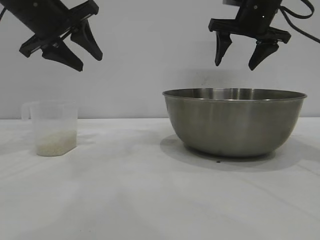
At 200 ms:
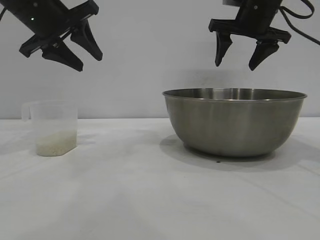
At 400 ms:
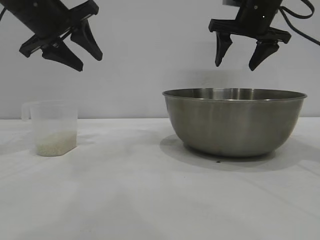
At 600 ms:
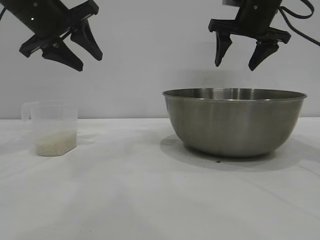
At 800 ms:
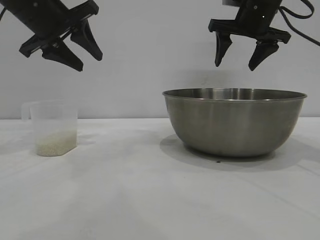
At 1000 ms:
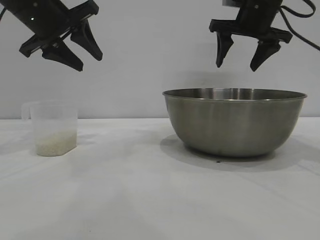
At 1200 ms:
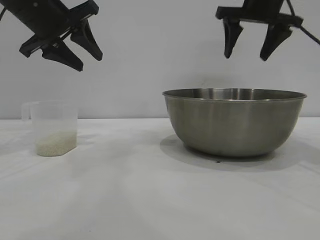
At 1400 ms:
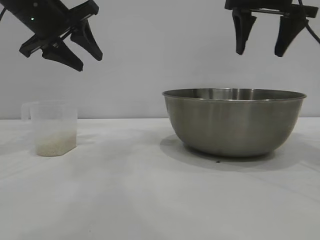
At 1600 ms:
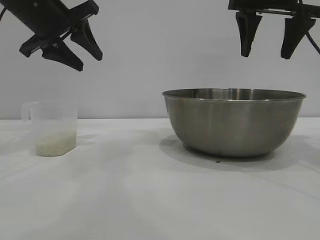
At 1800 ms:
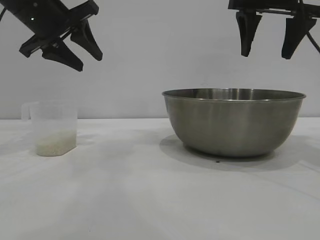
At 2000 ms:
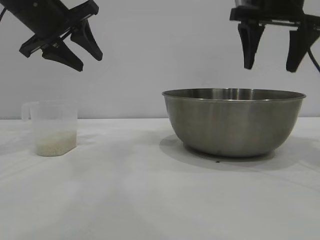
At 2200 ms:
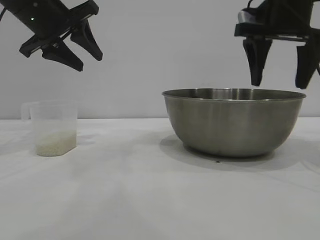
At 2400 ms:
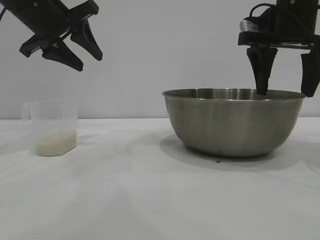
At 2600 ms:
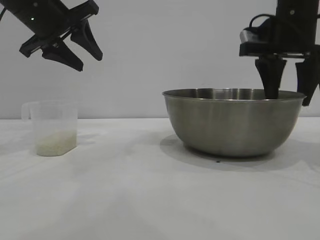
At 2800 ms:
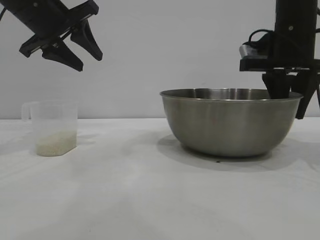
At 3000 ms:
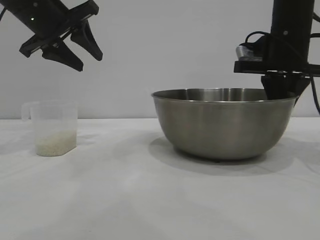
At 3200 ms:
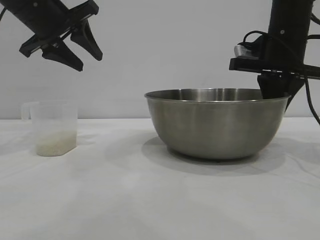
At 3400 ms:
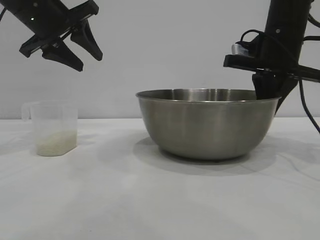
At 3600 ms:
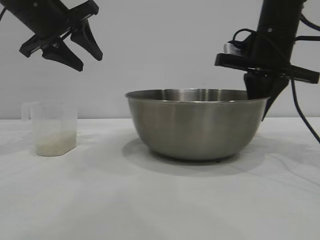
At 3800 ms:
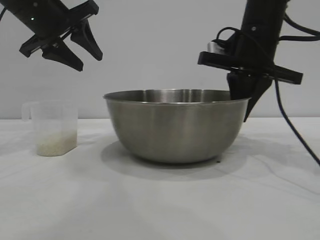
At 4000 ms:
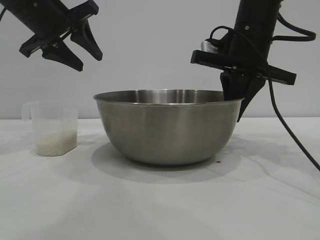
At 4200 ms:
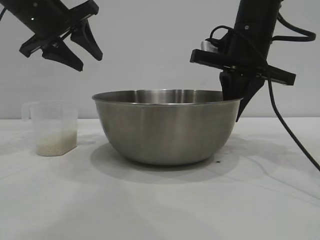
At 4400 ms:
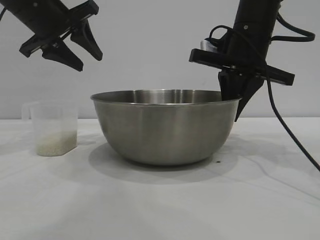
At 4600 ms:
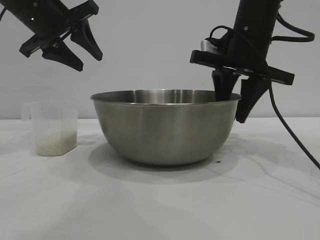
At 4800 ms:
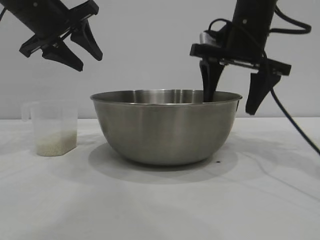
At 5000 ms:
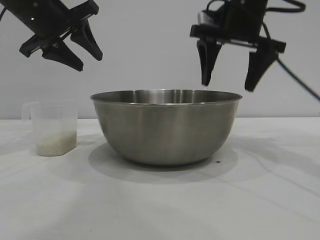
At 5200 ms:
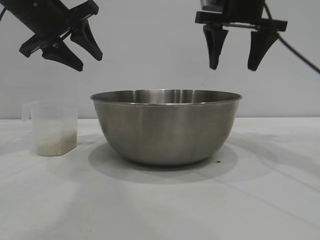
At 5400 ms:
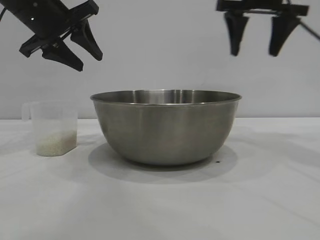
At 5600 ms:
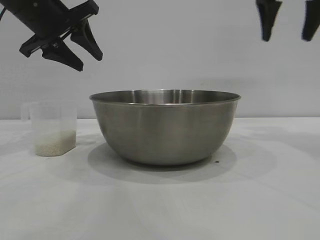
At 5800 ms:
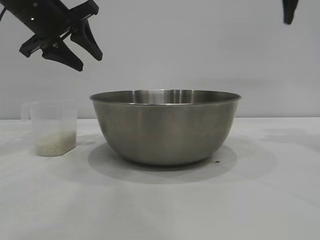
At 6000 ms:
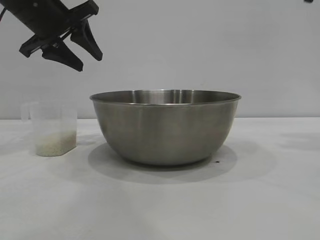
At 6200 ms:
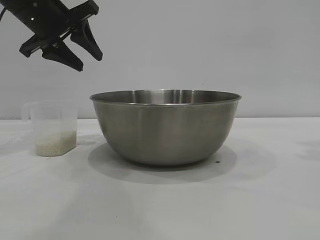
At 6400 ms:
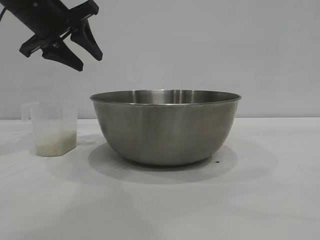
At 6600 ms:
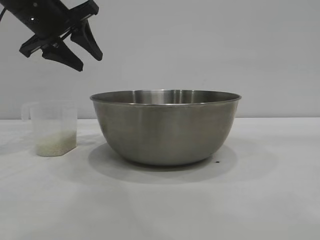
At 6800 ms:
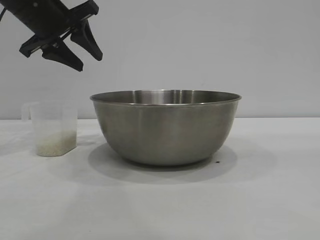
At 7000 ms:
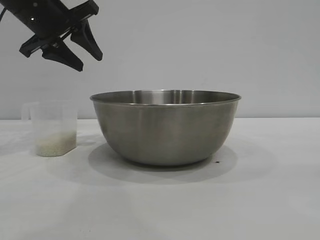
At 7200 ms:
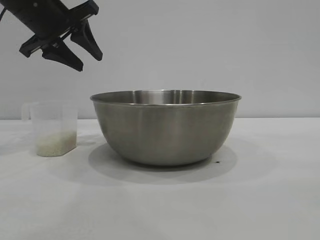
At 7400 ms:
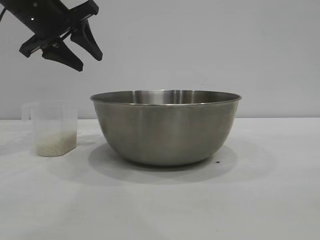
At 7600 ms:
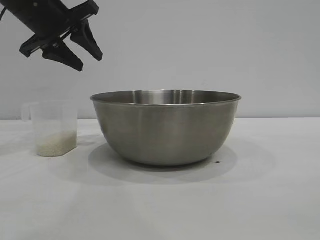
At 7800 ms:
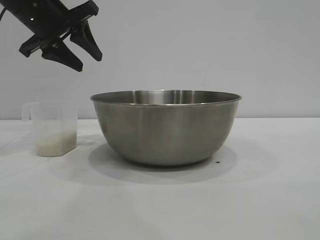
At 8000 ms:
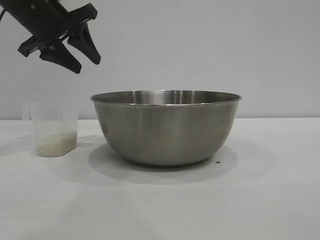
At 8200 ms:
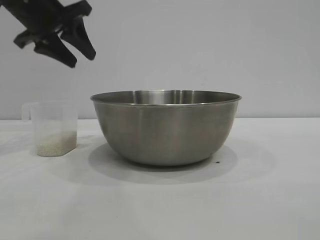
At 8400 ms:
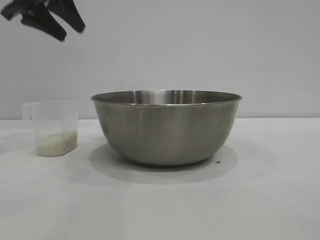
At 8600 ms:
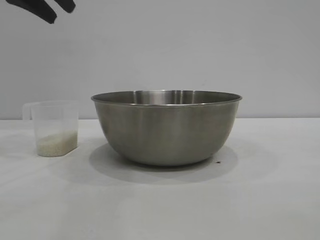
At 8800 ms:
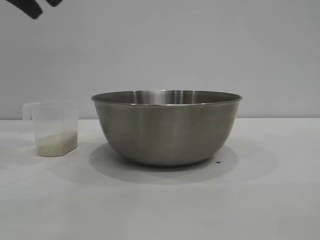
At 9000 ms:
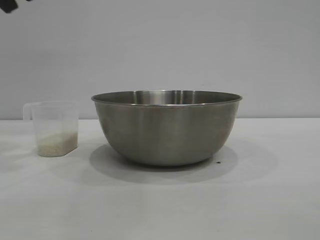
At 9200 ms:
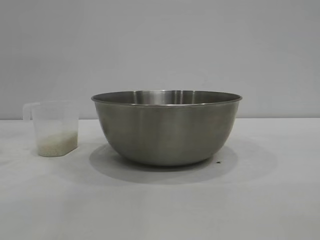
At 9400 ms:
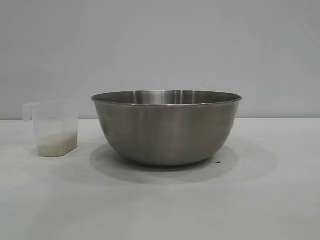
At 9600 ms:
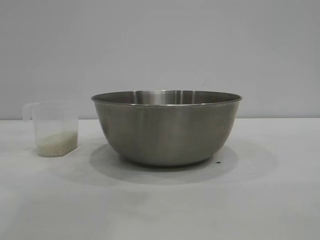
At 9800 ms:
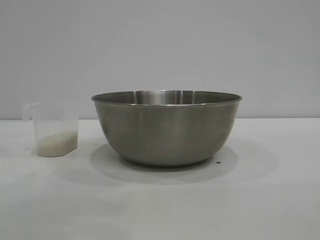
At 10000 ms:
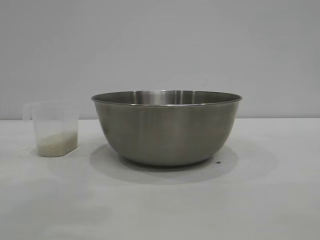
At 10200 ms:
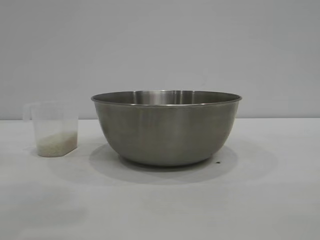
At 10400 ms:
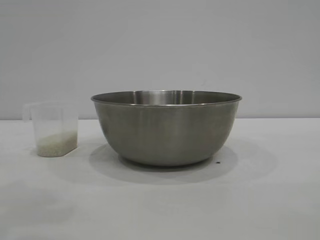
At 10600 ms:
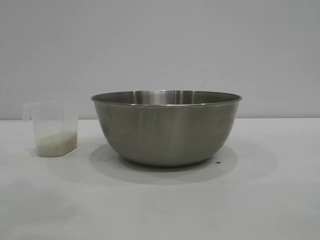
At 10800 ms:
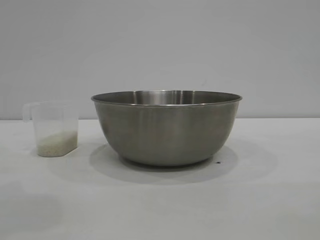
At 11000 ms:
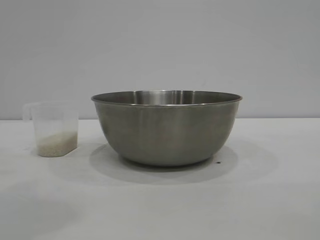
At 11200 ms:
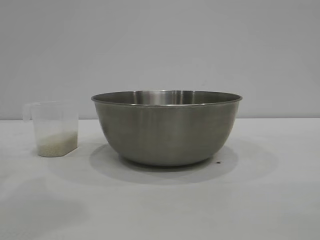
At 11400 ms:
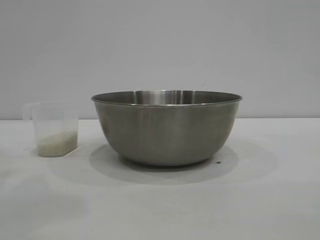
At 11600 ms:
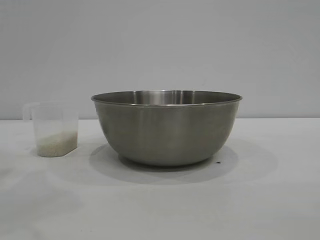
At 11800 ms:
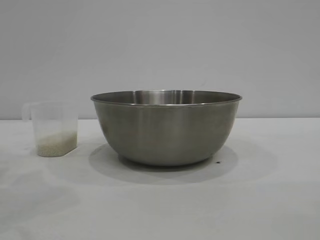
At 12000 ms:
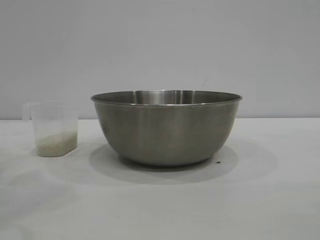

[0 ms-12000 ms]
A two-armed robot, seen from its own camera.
Task of the whole recording: the right gripper grasp the rice container and place it in the center of the table, the left gripper grasp the rice scoop and pour the rice into the rice container.
Step, 0 ms to 5000 ms: Move the bowl to the center of view with the right gripper.

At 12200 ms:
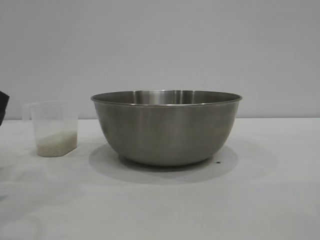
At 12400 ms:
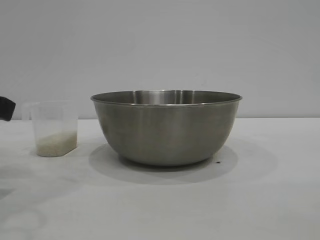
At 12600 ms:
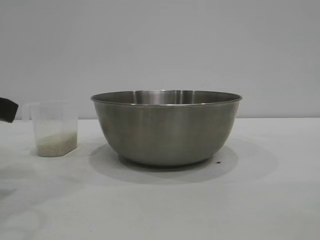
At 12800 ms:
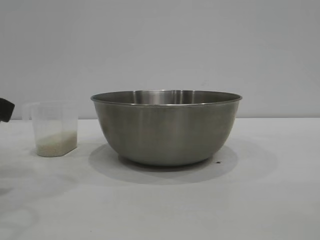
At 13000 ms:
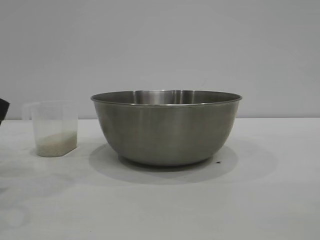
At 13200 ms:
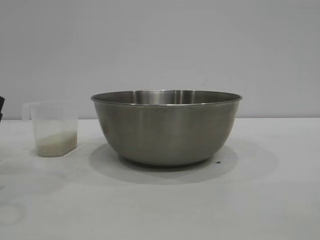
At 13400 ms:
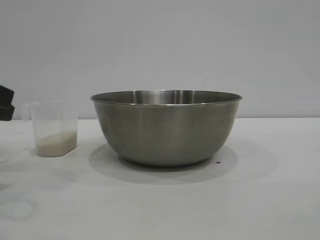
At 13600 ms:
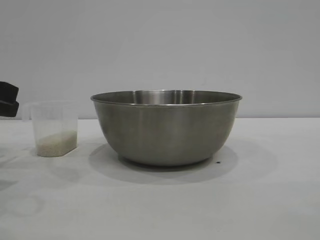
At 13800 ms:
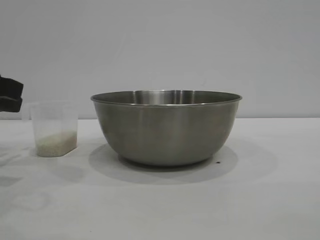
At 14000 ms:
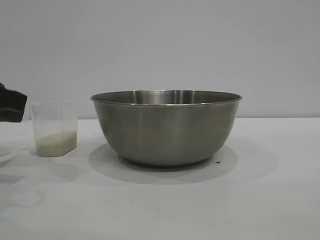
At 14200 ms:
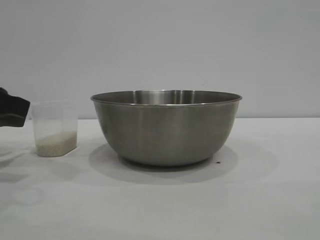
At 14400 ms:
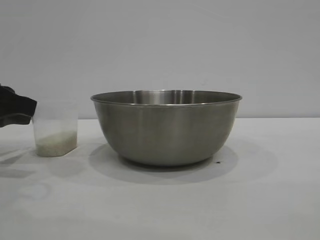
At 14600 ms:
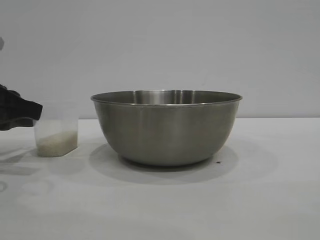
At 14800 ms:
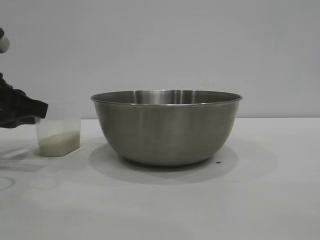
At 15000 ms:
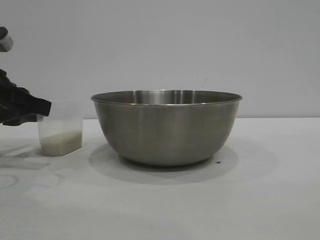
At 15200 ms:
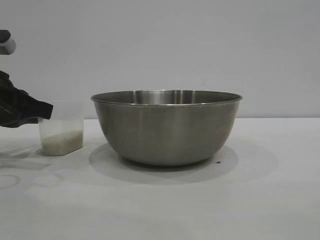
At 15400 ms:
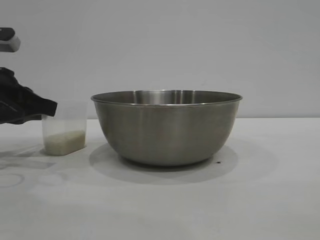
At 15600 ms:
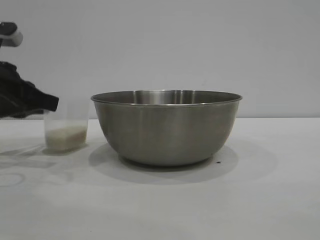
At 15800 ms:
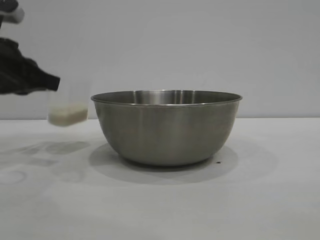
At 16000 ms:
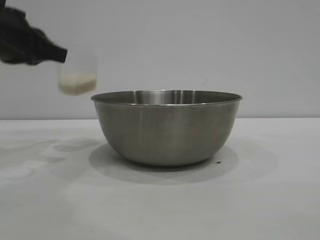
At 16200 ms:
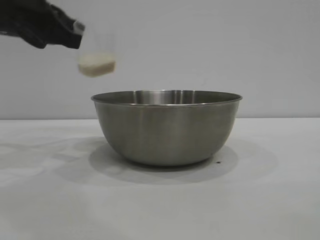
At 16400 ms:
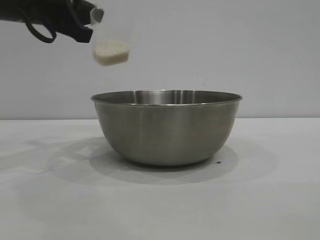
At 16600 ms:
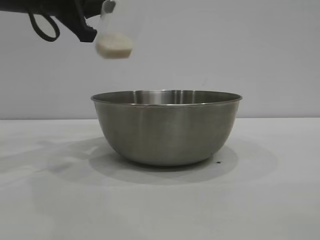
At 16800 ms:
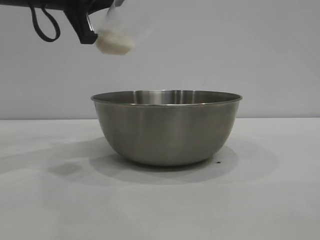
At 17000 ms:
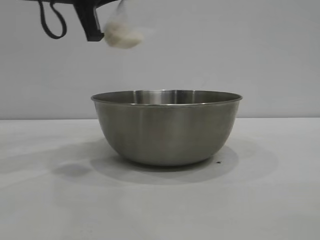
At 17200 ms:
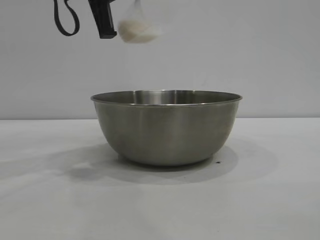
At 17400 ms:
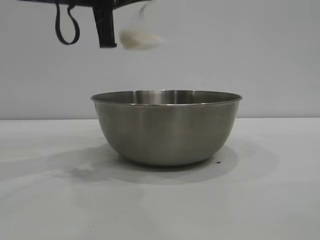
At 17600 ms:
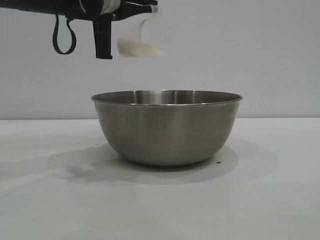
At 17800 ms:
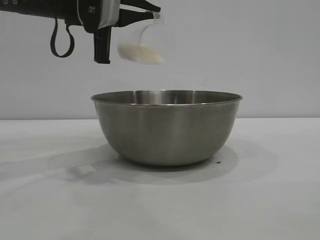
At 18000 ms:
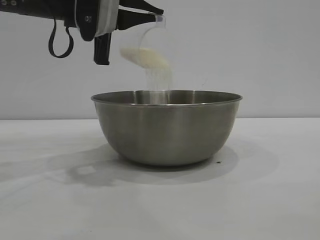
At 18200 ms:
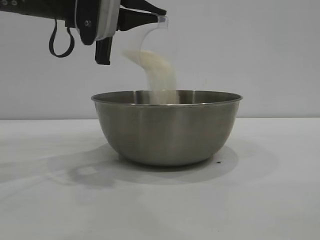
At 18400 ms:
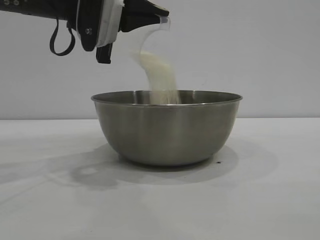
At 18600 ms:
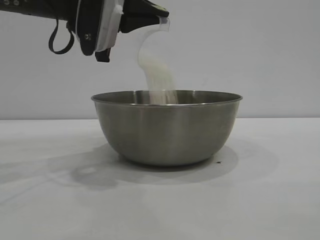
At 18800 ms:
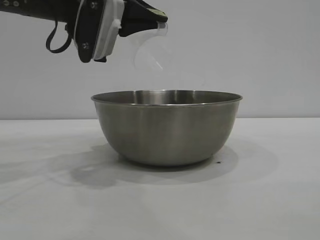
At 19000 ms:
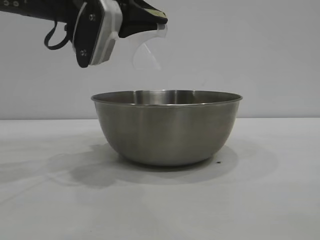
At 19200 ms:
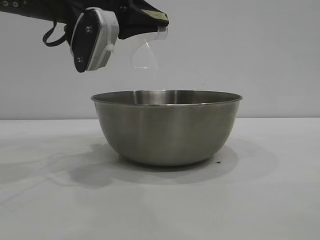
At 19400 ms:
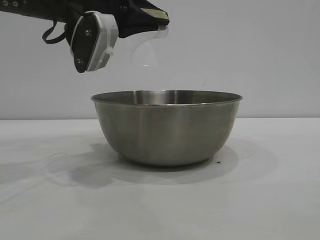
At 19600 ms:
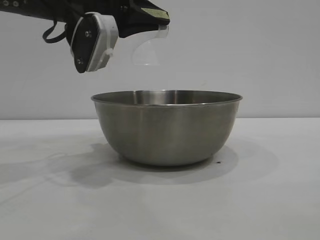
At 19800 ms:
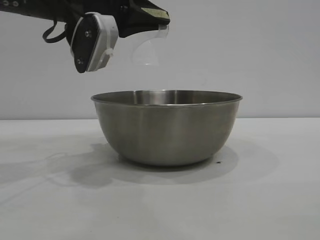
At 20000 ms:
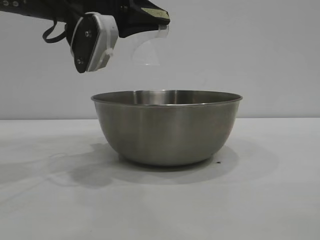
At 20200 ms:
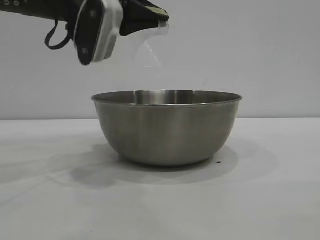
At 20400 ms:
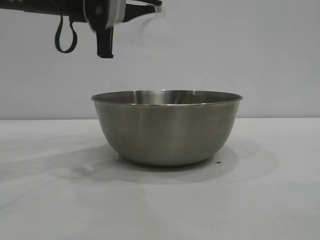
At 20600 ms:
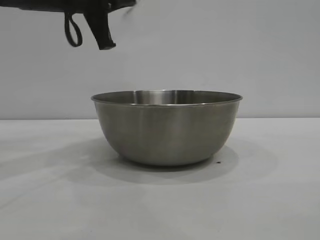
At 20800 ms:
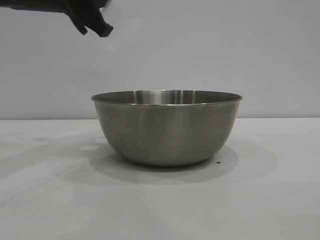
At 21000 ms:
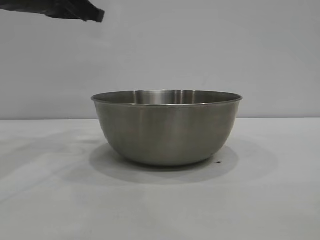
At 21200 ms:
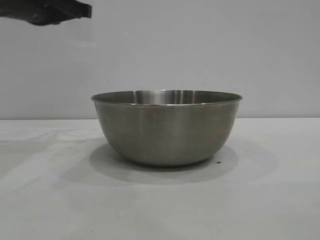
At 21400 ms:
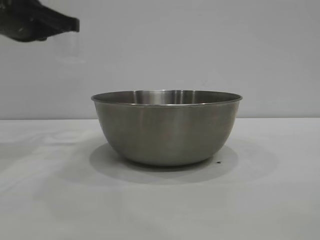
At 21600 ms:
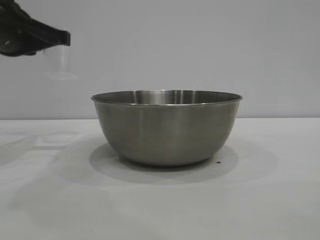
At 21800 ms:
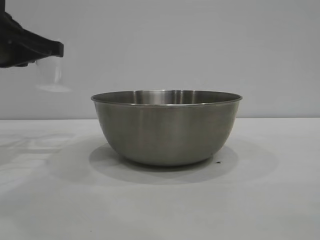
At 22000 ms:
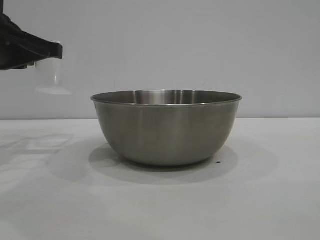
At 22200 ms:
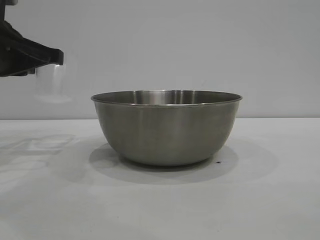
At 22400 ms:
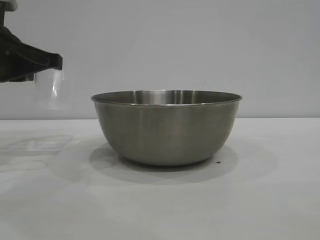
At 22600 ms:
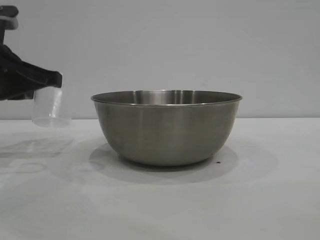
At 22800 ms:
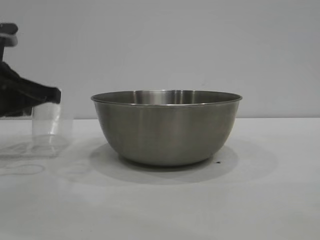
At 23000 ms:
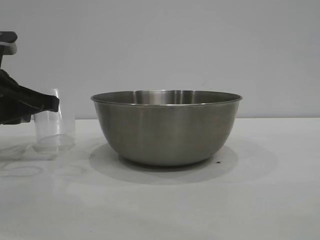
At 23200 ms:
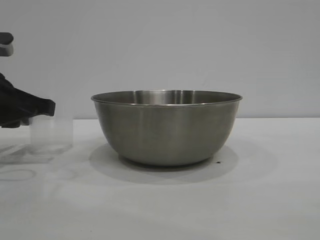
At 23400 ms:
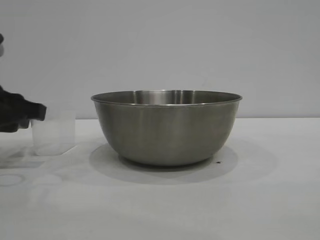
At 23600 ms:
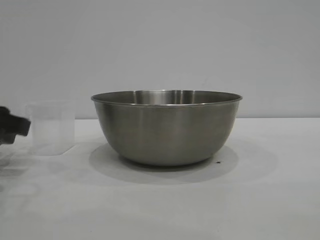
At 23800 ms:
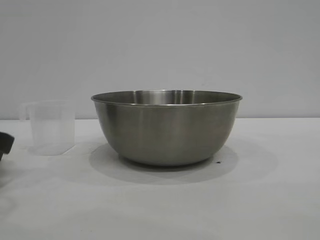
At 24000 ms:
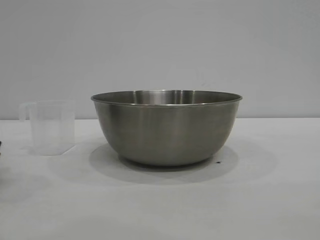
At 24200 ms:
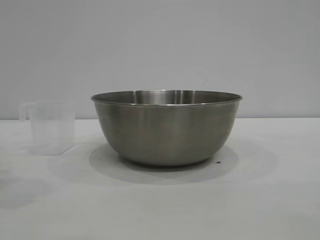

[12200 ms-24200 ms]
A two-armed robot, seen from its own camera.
Task of the whole recording: the right gripper grasp the rice container and place it in the center of the table, the left gripper grasp the rice scoop and pour the rice into the rice container.
Step, 12200 ms to 16000 ms: Pick up the cup with rice in it with the left gripper.
Step, 16200 ms to 20600 ms: Pour the rice from the cup into the bowl with the left gripper.
Step, 21000 ms to 23800 ms: Place the cup on the table with the left gripper.
